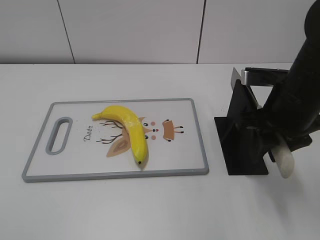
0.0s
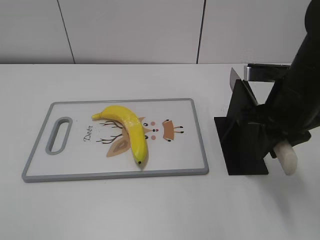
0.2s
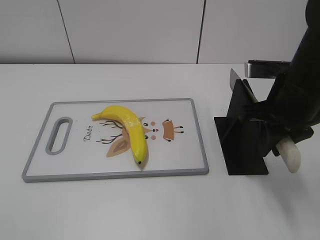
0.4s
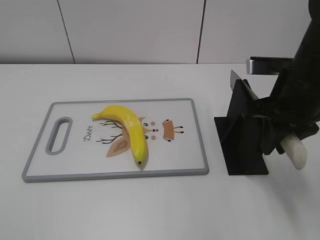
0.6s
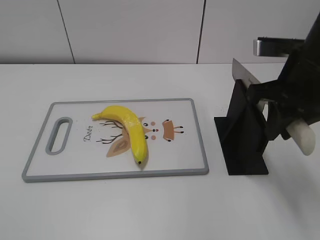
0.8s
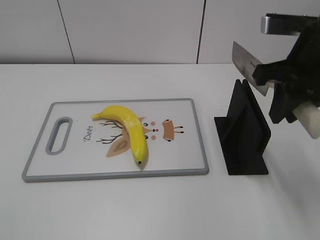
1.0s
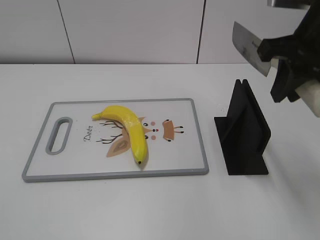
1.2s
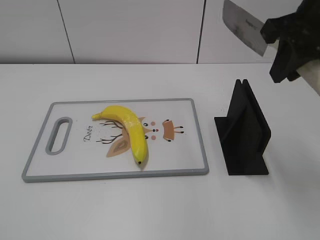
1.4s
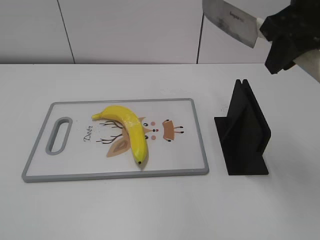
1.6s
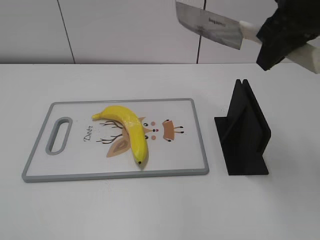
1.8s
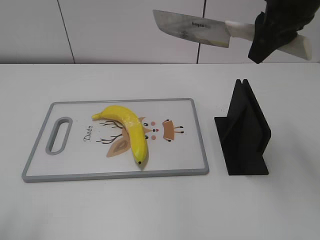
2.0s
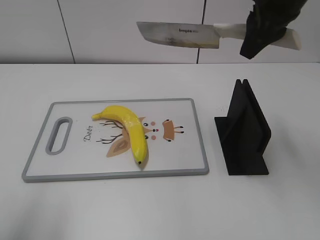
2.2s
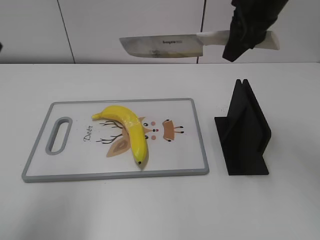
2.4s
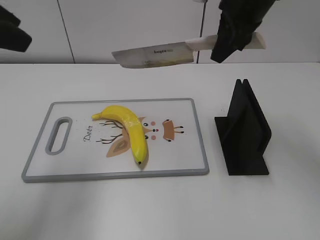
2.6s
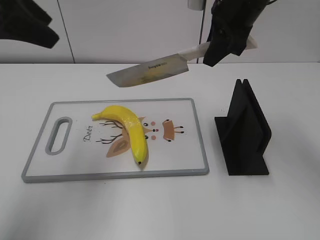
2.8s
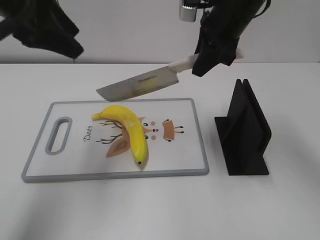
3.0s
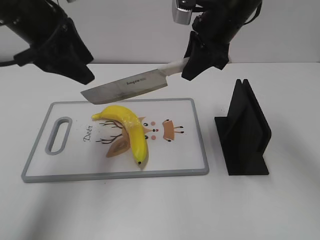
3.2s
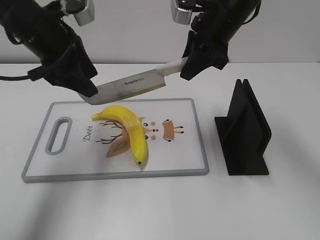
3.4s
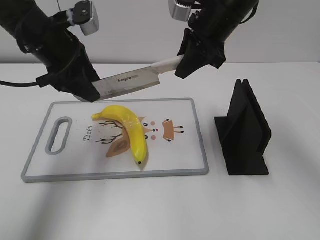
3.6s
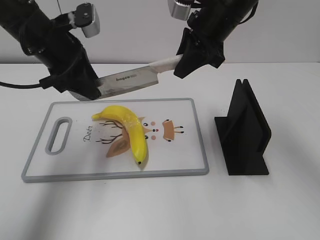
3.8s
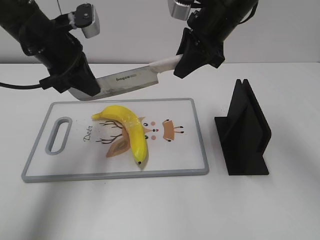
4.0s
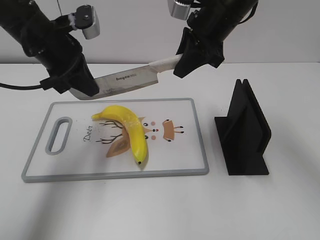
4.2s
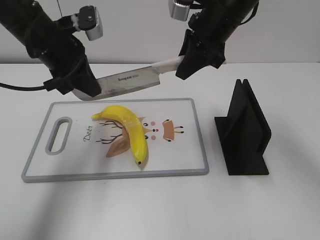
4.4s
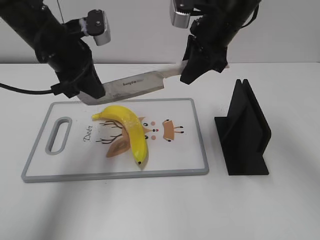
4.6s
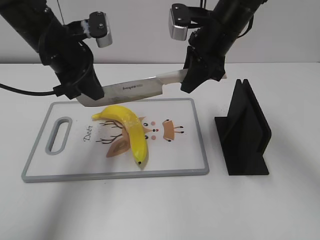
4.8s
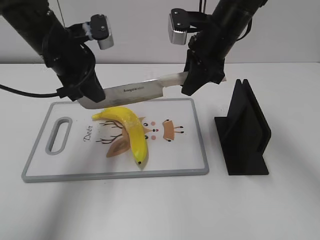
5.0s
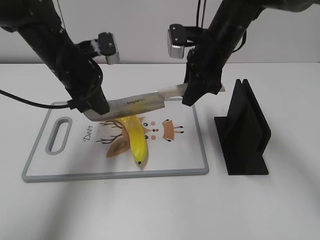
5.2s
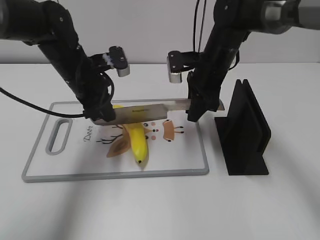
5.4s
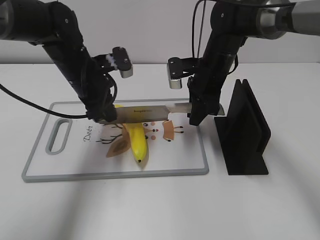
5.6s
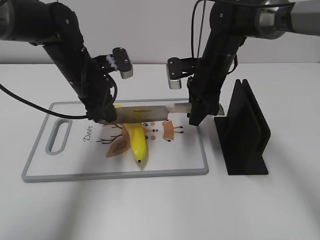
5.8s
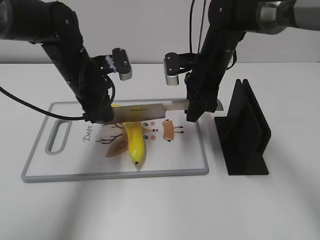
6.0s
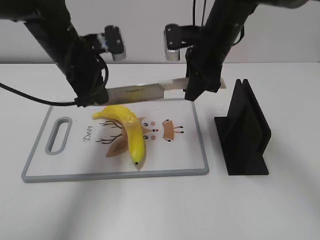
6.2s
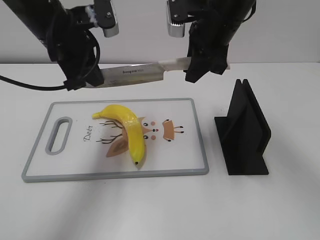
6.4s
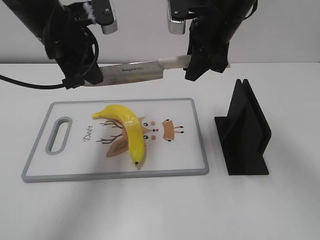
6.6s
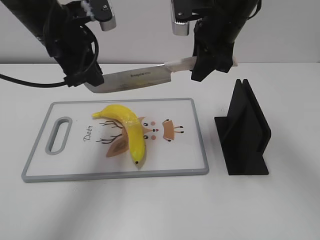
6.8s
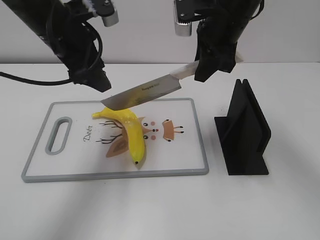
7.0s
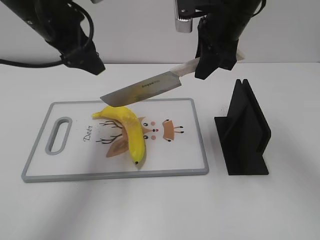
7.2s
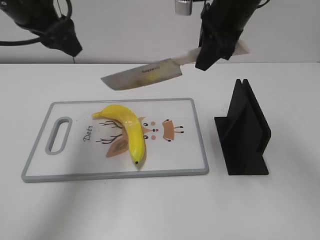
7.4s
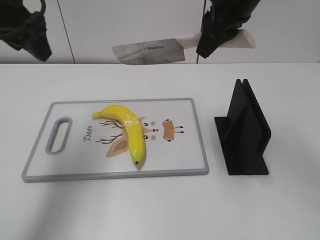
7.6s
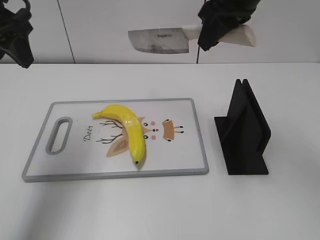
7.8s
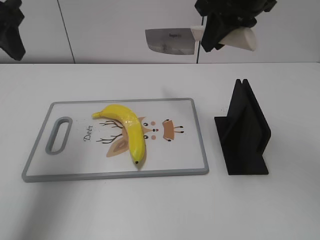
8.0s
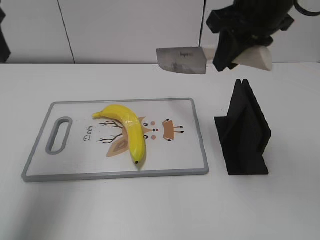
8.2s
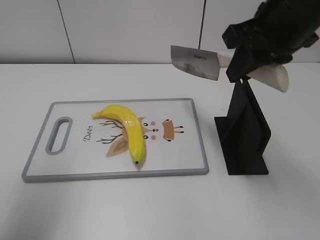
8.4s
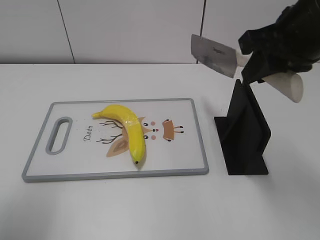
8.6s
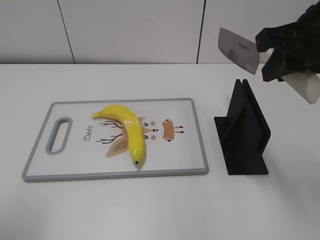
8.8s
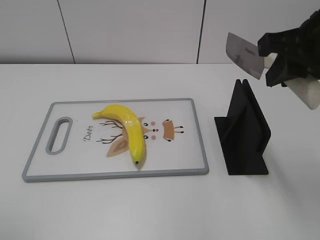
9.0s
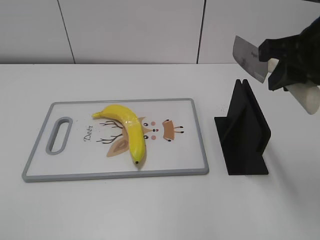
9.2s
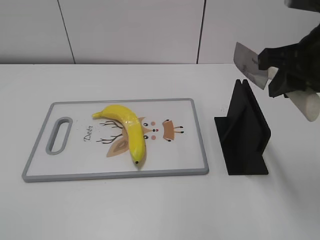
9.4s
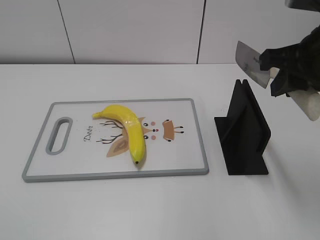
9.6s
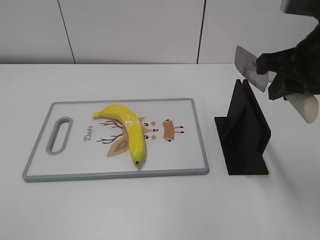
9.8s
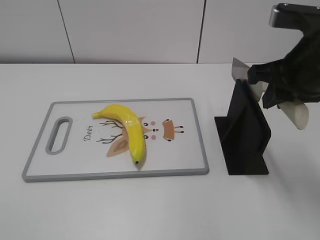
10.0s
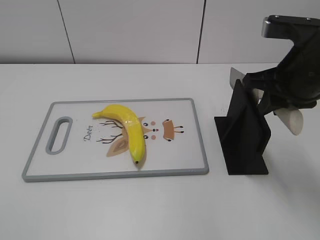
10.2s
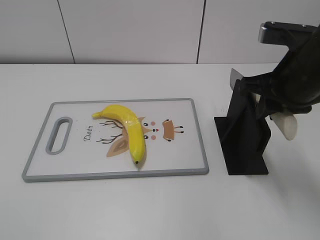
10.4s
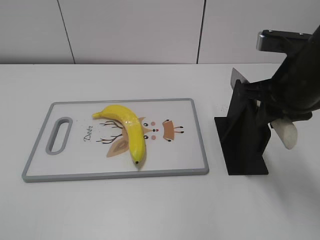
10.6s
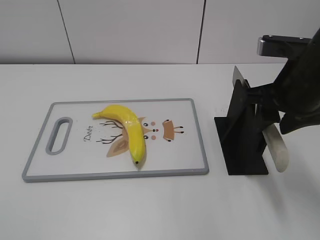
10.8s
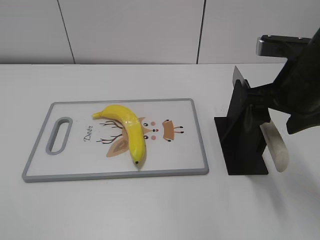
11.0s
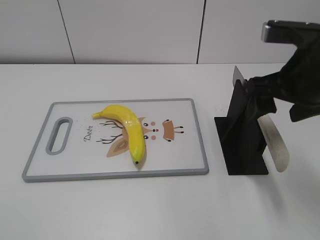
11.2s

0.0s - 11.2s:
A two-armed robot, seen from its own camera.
Task of the whole recording: cut plastic banana.
Step, 1.4s - 6.0s: Lift the knife with your right hand.
Step, 6.4s - 8.4s: Cut the banana with your right hand.
Step, 8.8s - 9.2s: Lift the knife with your right hand.
0.0s - 1.6s: The right gripper shifts roughly 15 cm upward.
1.6s - 3.2s: The left gripper shifts some 35 cm forward, while the right gripper travels forward, to the left and downward by about 15 cm.
3.2s - 4.8s: The left gripper moves downward, roughly 5 cm, and closes its fingers.
4.8s - 6.4s: The right gripper moves some 10 cm downward and comes back; the left gripper moves approximately 5 cm downward and comes back.
6.4s - 8.0s: The right gripper goes about 5 cm upward. The left gripper shifts approximately 15 cm to the left and upward, and opens.
8.0s - 9.6s: The right gripper moves backward and to the right, roughly 15 cm. Meanwhile the left gripper is displaced backward by about 30 cm.
9.6s - 11.2s: The right gripper opens up.

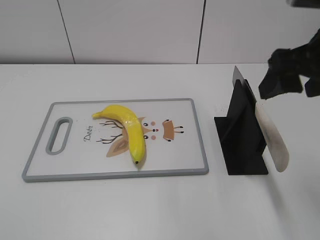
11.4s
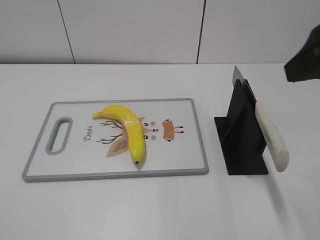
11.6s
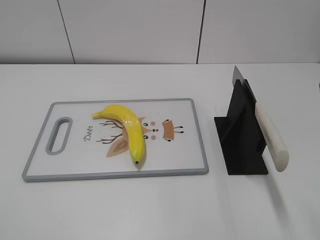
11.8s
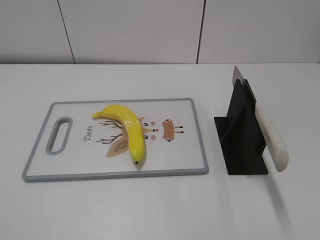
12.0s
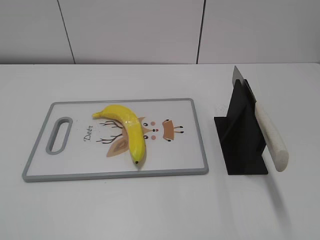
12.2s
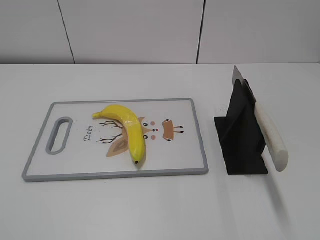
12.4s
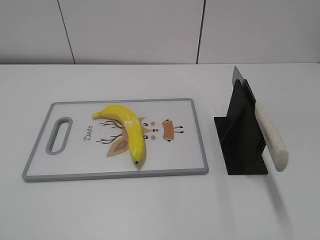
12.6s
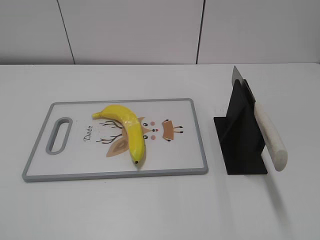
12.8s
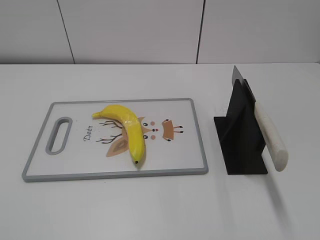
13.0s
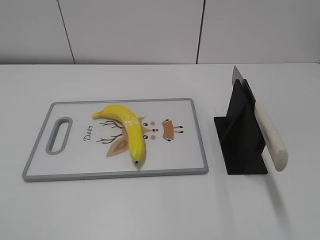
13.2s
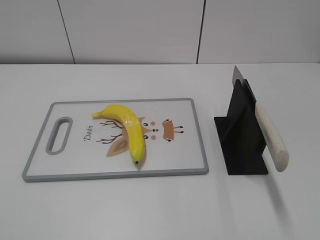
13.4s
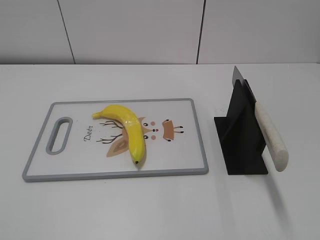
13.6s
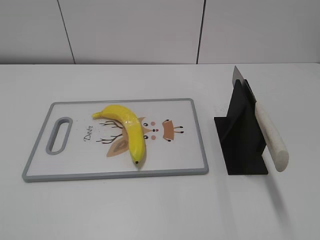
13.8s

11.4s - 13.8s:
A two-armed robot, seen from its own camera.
Task of the whole recording: cut plastic banana.
Step, 11.4s - 13.8s: Place the knife on the storage rack with your right hand.
11.4s - 12.6s: The right gripper shifts roughly 25 cm backward and to the right.

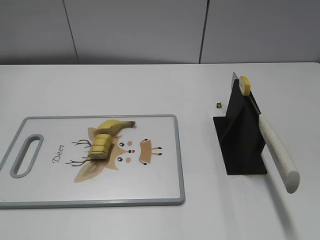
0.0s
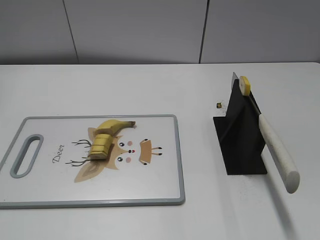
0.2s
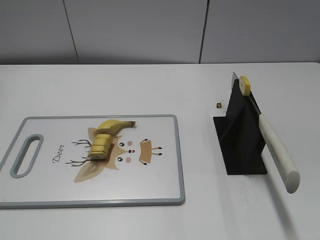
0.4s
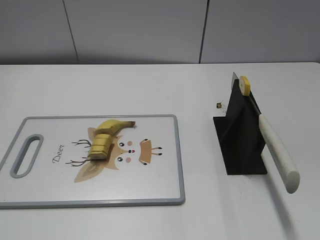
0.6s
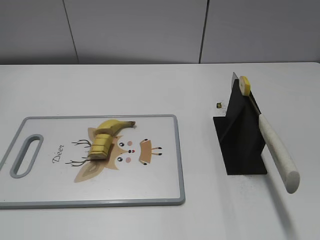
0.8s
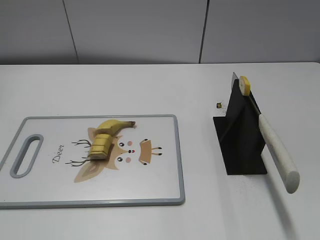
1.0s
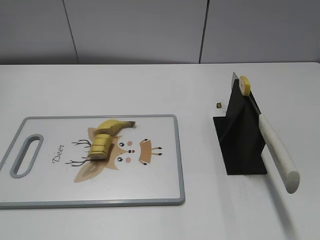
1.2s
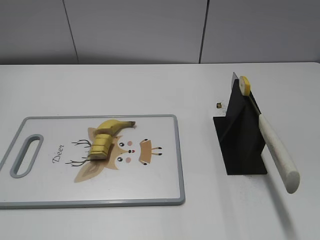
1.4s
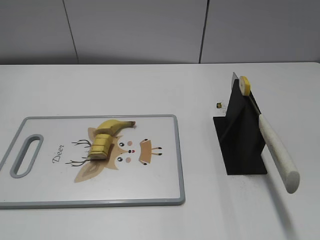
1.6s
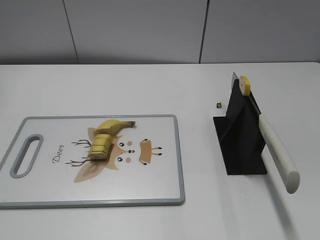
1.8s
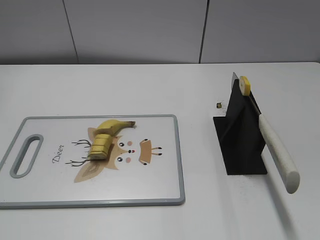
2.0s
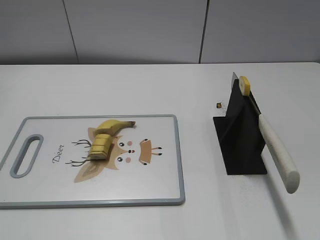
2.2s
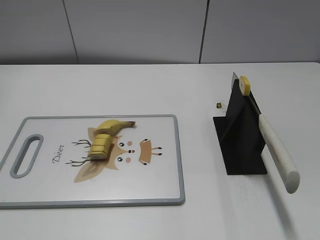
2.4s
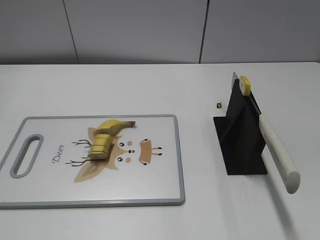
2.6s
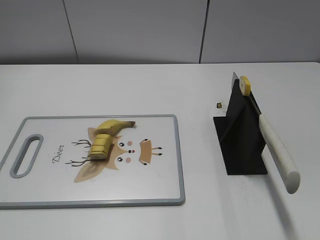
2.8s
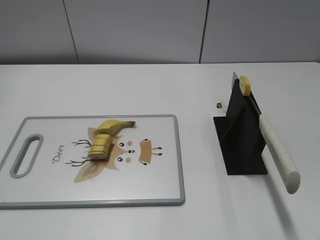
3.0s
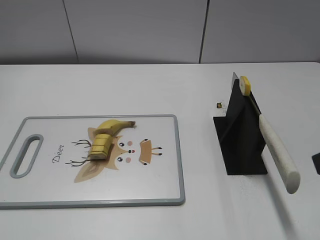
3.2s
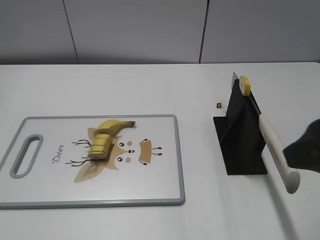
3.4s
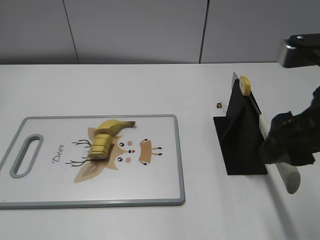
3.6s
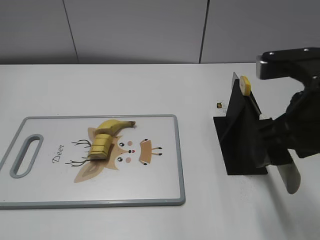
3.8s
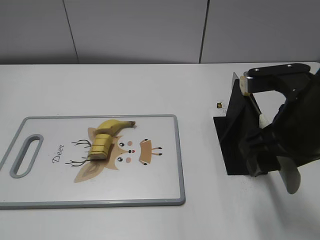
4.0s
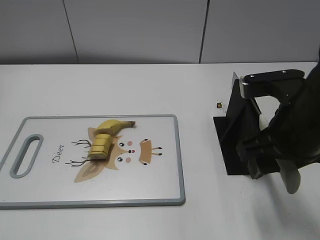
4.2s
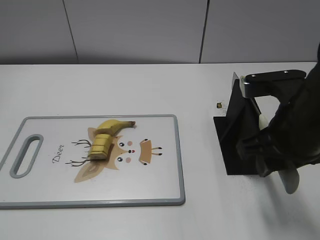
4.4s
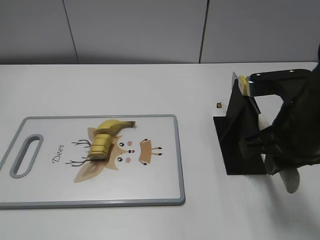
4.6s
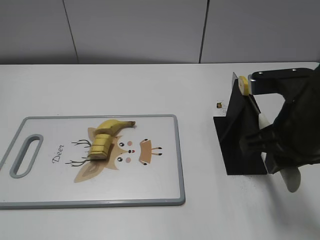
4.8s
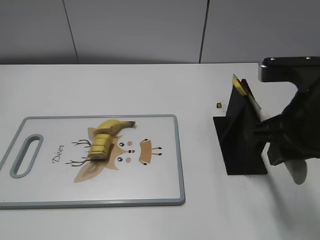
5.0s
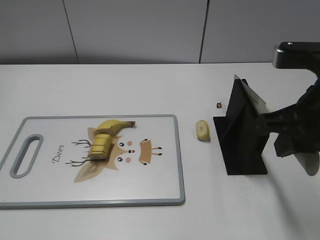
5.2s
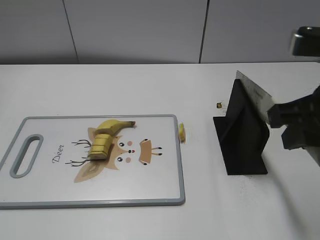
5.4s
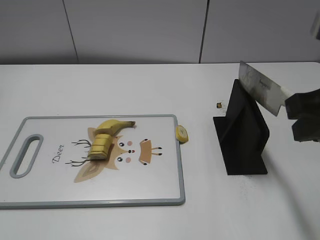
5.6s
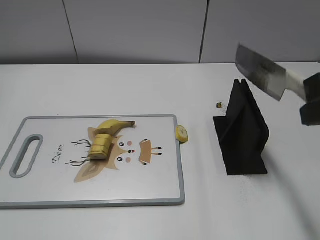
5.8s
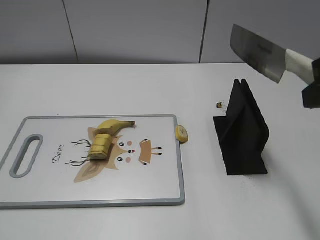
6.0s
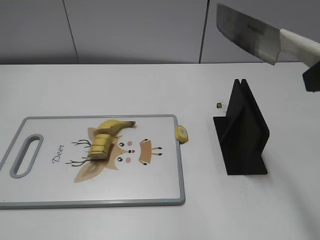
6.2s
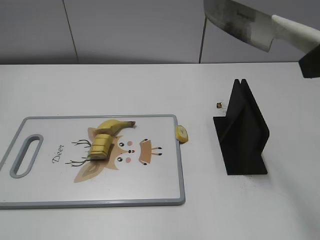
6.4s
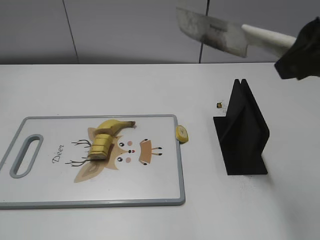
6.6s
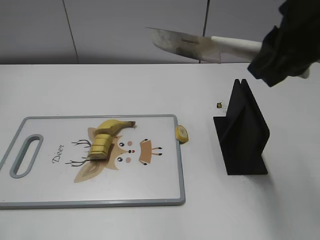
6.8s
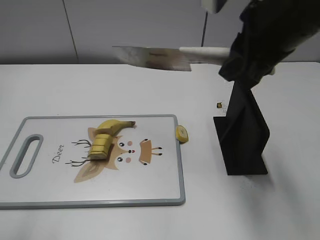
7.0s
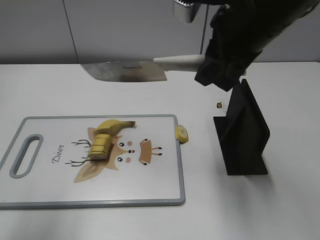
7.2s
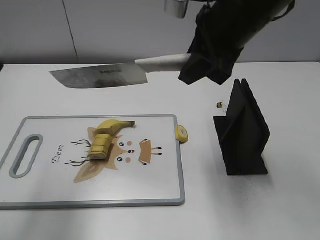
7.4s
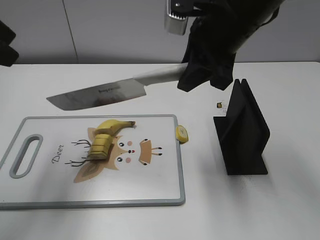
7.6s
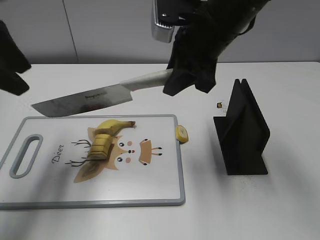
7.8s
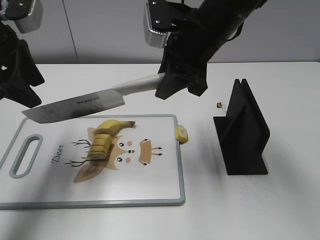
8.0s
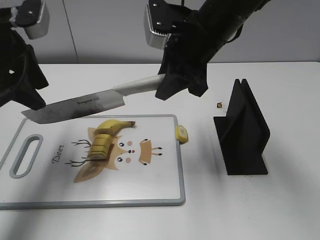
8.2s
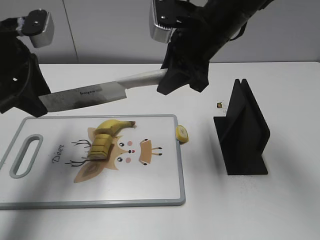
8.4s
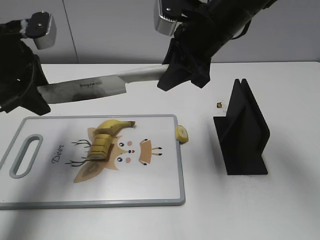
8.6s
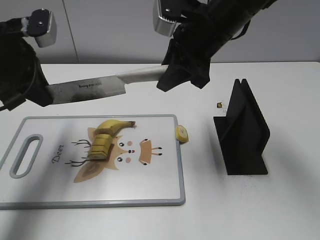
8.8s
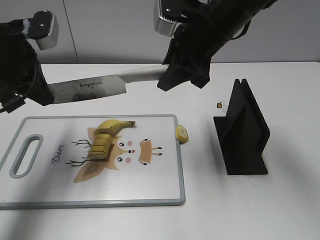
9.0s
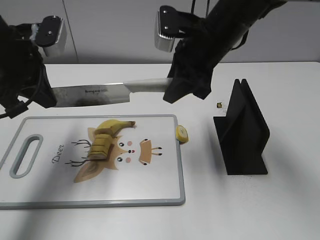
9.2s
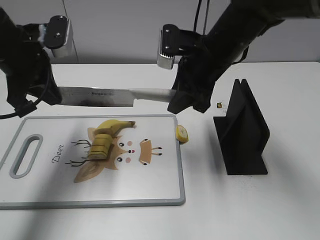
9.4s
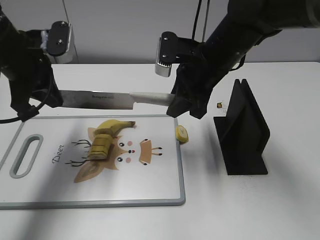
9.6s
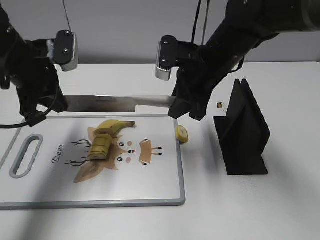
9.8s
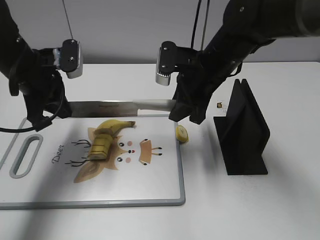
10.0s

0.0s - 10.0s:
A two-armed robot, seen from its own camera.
Task of the whole recording: cut banana.
Step, 0.0s - 5.4s: Grab the knife handle with your right hand.
2.8s - 4.2s: The right gripper is displaced forward, to the left and downward by approximately 20 cm.
4.2s - 5.8s: The right gripper goes approximately 10 cm upward and backward, and closes up.
5.8s - 7.2s: The left gripper heads forward and upward, covering about 20 cm, while the right gripper moves forward and to the left, some 15 cm.
7.2s - 8.6s: The left gripper travels forward and downward by about 20 cm. Meanwhile the right gripper is displaced forward and downward by approximately 10 cm.
8.6s - 10.0s: Both grippers travel together downward, roughly 5 cm. The left gripper closes.
